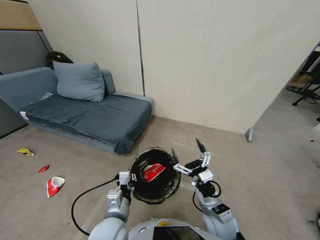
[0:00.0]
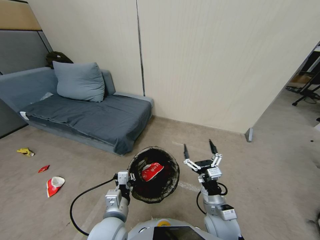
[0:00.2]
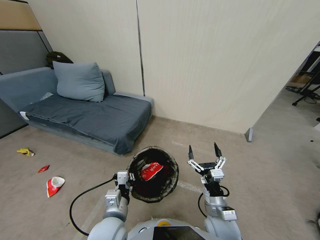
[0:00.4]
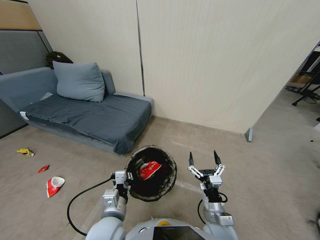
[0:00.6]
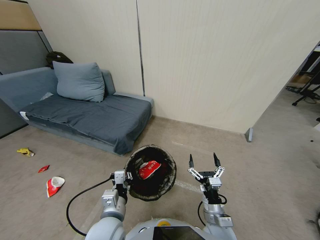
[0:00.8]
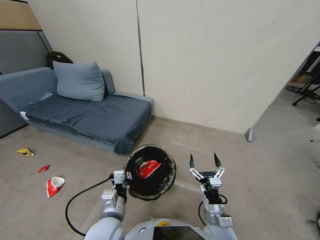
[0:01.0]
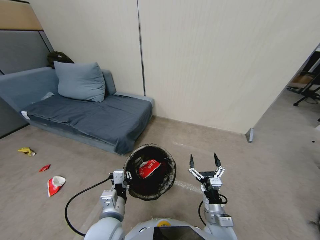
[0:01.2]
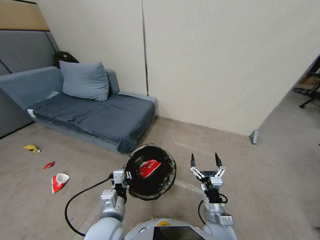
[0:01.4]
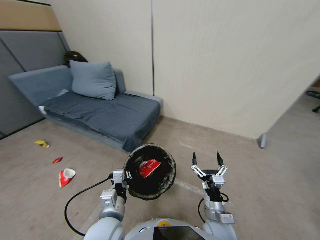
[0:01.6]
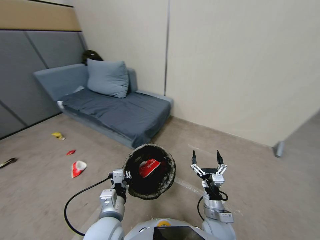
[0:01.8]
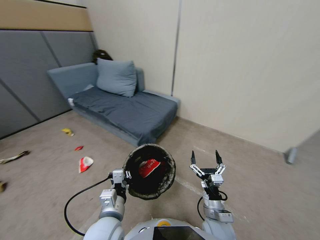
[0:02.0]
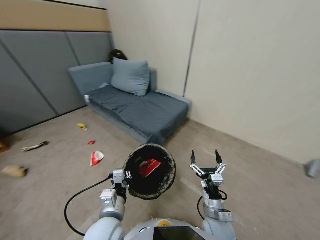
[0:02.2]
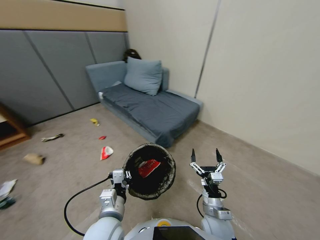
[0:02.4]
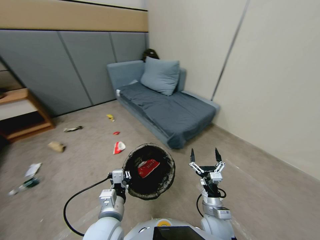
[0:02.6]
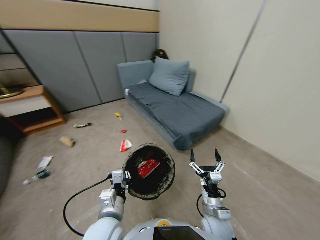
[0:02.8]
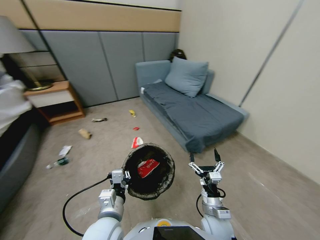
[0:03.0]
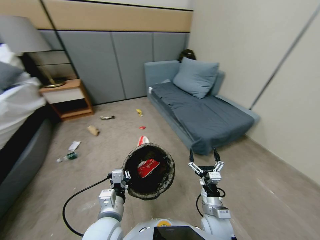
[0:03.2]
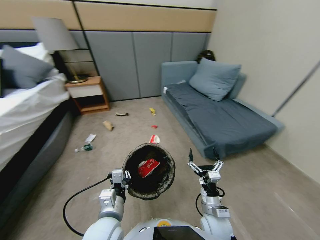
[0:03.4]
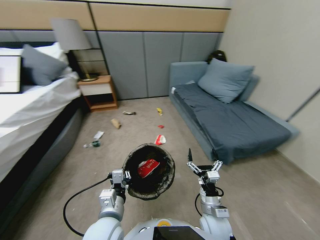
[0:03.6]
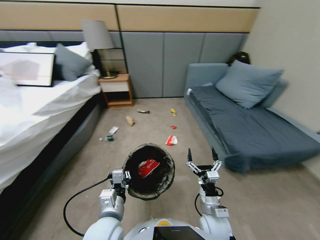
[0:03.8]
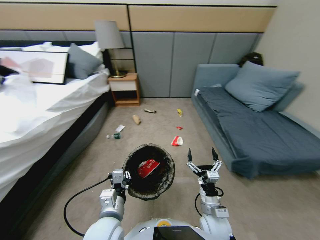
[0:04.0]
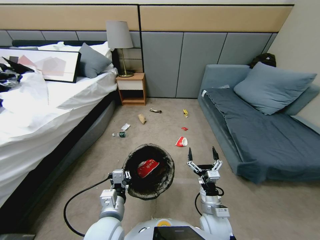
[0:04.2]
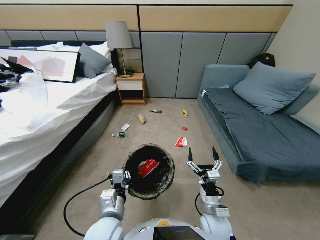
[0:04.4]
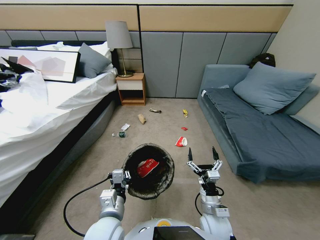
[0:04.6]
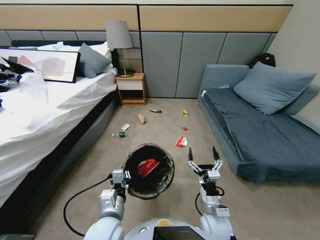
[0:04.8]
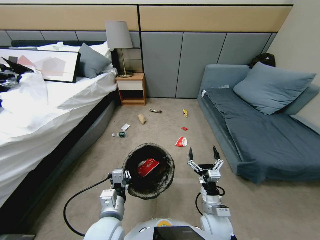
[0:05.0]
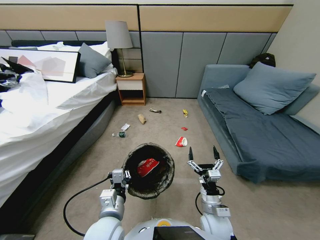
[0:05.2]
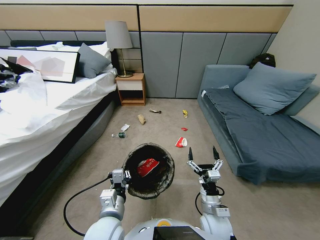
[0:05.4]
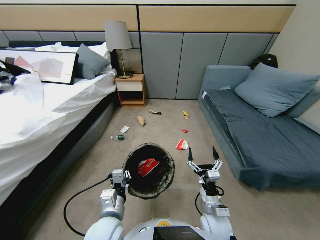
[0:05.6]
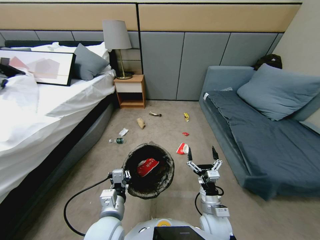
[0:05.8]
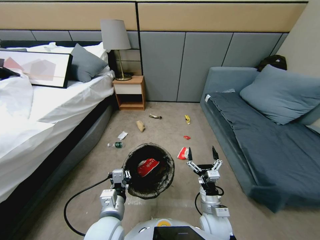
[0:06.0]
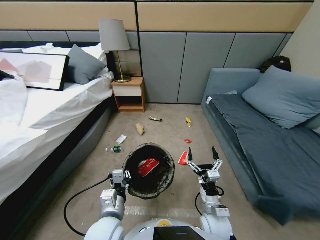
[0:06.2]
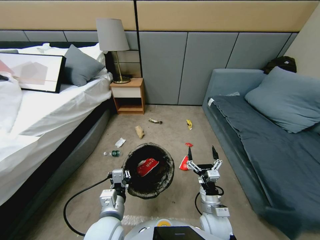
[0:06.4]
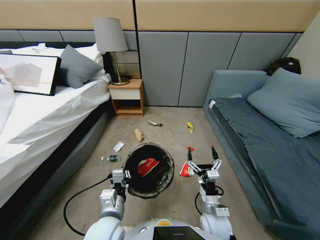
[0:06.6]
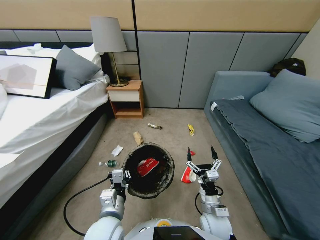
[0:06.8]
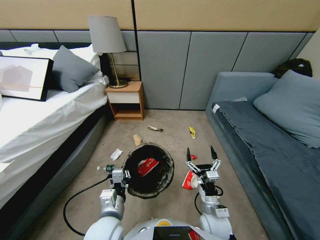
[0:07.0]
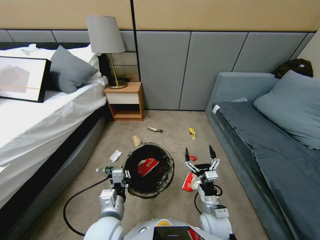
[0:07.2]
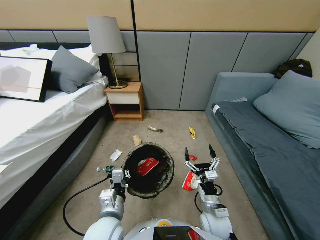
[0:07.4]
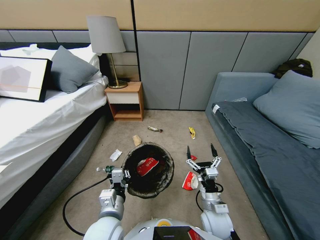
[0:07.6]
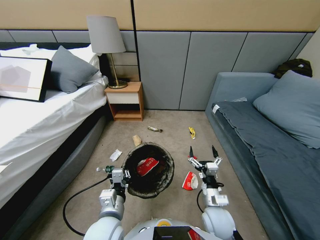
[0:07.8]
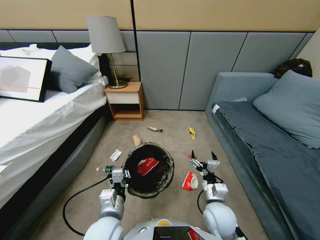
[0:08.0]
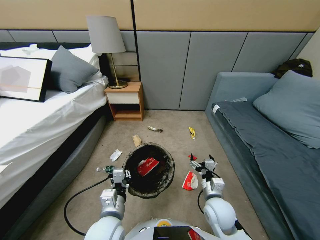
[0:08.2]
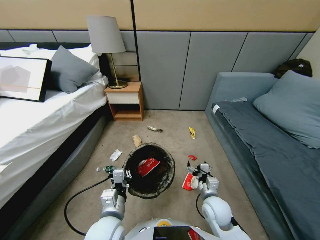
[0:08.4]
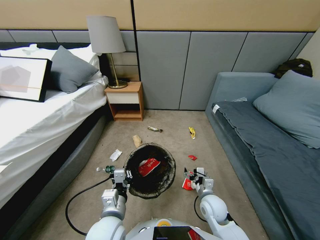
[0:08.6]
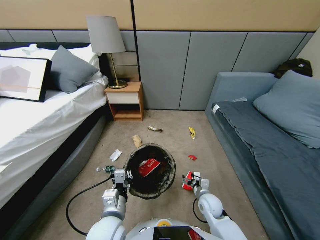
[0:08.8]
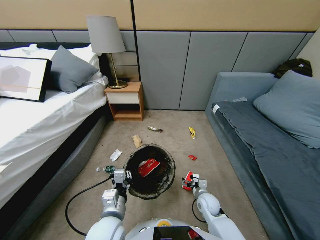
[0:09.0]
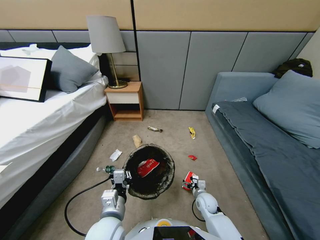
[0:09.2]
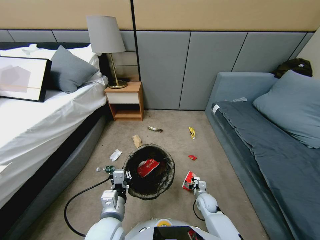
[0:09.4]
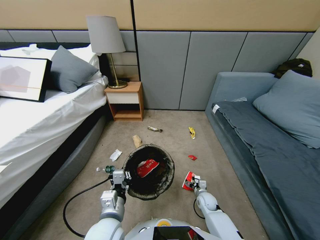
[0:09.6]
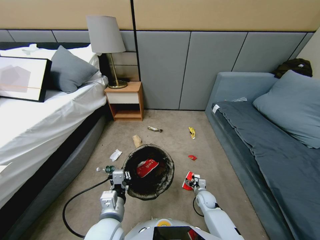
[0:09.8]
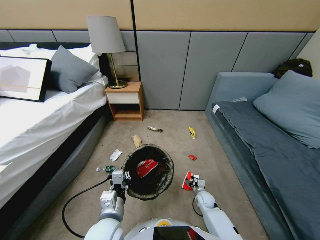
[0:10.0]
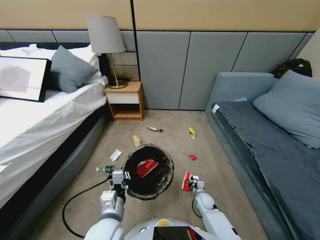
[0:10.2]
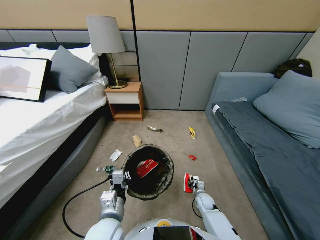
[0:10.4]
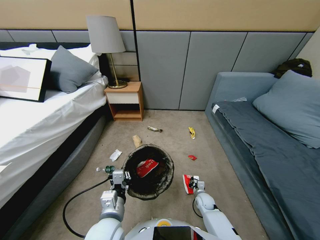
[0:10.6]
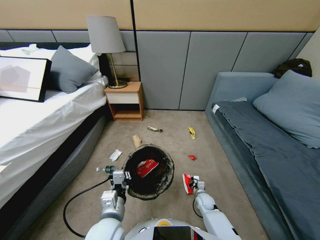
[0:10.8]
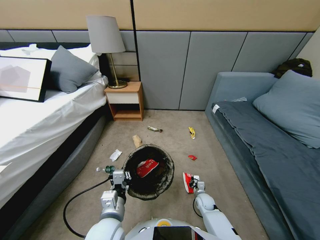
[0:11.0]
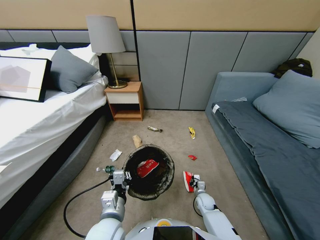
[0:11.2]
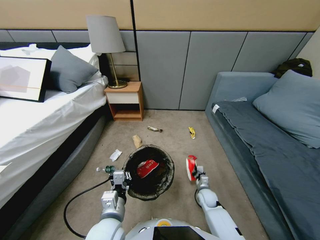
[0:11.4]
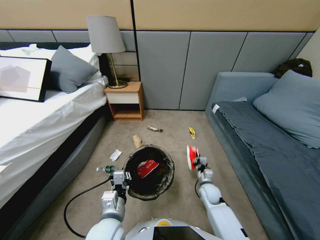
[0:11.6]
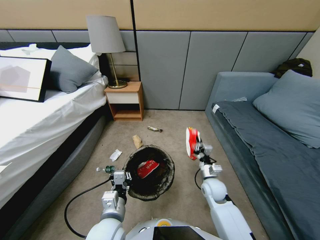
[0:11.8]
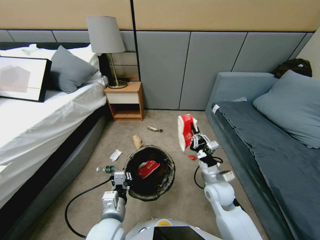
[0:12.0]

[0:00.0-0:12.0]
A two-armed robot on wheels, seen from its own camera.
Task of the whole recording: Pick up the trash bin, then pick up the garbage from the floor and place it into the trash bin.
0:00.0 to 0:01.6: The grippers move only a little.
0:07.6 to 0:09.0: The right gripper shifts some 15 cm downward and forward.
0:09.0 to 0:10.4: The right gripper goes some 10 cm downward, and closes.
0:10.4 to 0:12.0: The right gripper goes roughly 25 cm upward.

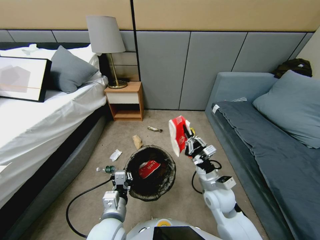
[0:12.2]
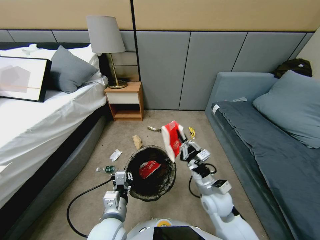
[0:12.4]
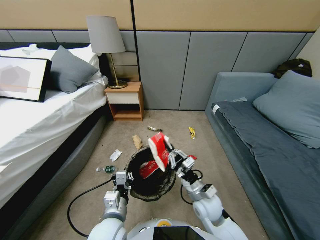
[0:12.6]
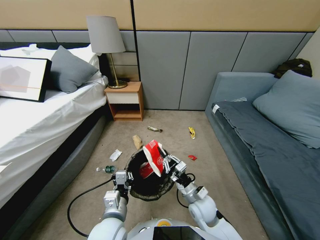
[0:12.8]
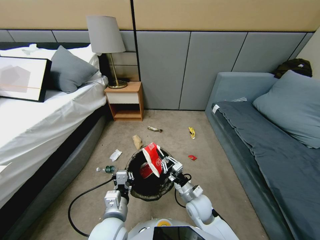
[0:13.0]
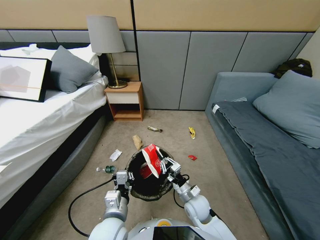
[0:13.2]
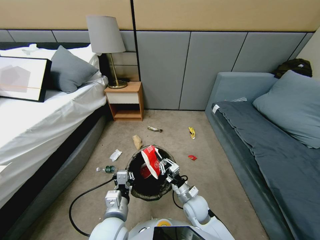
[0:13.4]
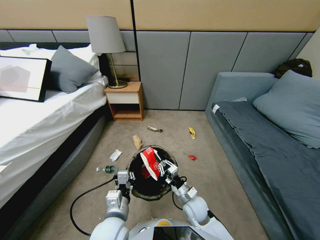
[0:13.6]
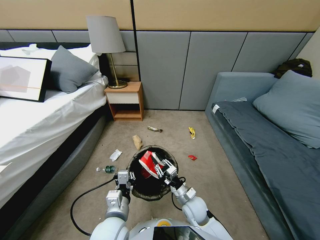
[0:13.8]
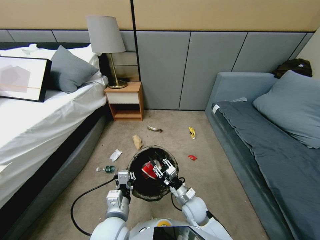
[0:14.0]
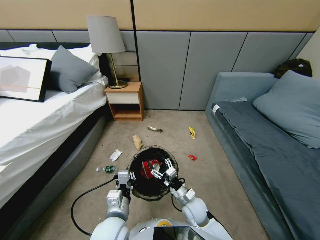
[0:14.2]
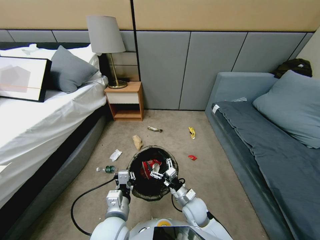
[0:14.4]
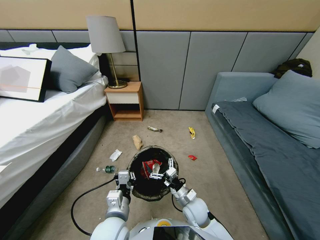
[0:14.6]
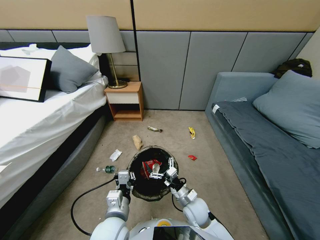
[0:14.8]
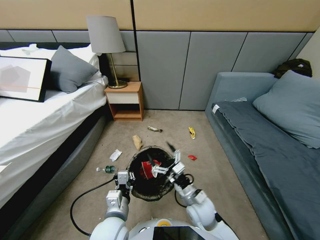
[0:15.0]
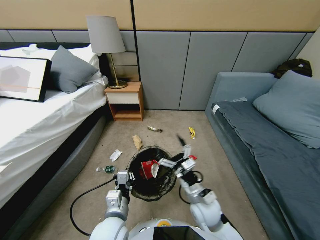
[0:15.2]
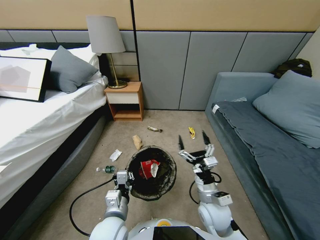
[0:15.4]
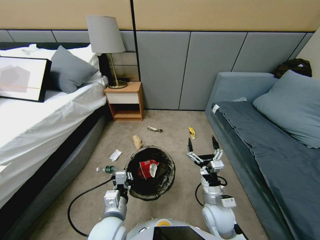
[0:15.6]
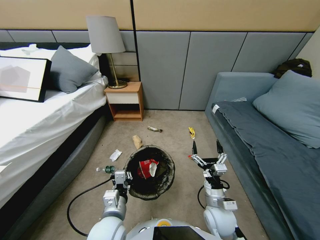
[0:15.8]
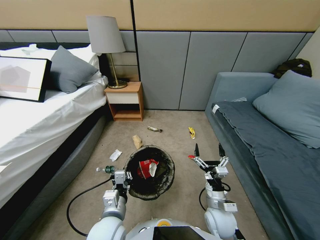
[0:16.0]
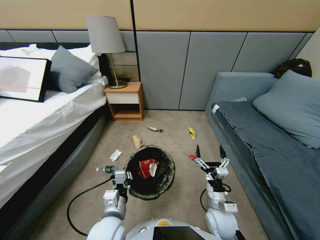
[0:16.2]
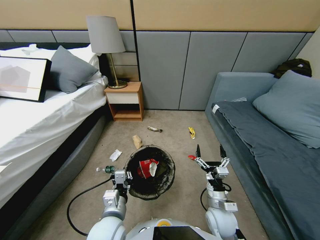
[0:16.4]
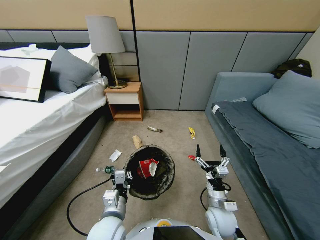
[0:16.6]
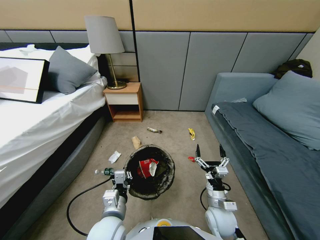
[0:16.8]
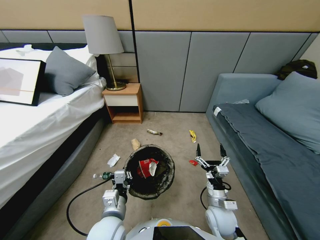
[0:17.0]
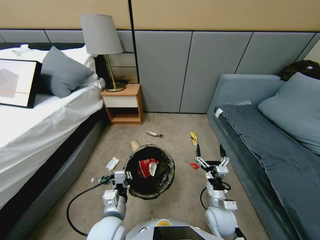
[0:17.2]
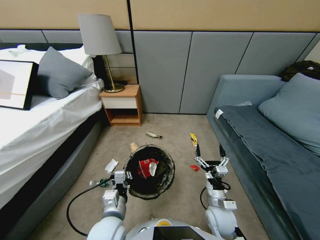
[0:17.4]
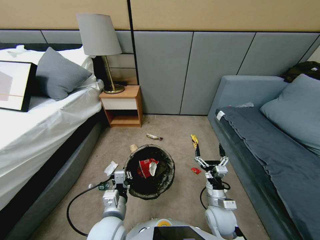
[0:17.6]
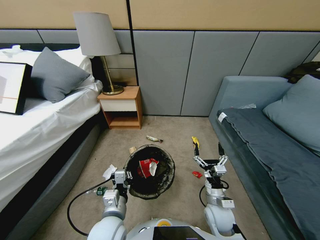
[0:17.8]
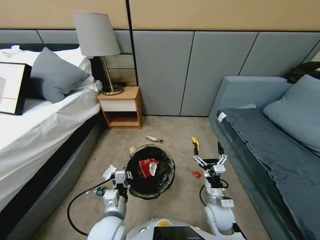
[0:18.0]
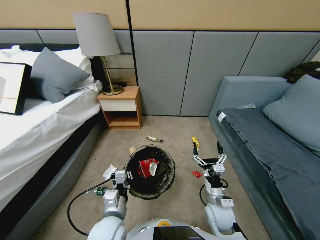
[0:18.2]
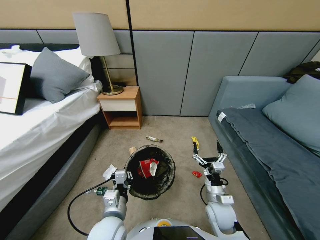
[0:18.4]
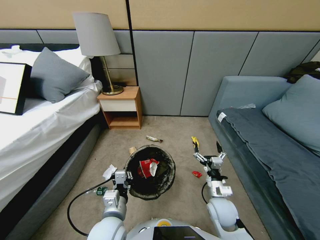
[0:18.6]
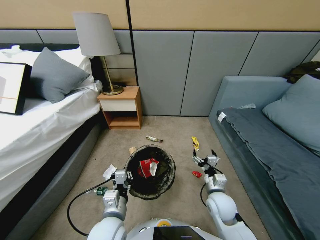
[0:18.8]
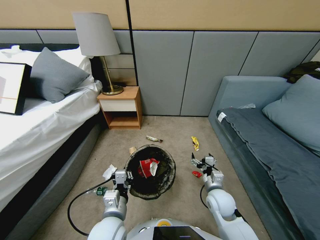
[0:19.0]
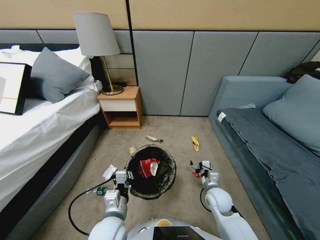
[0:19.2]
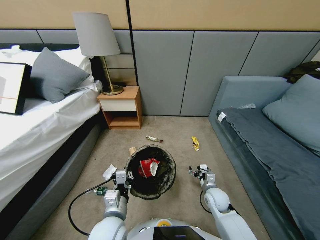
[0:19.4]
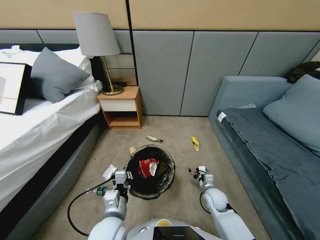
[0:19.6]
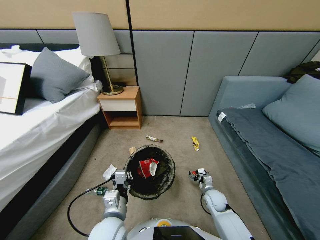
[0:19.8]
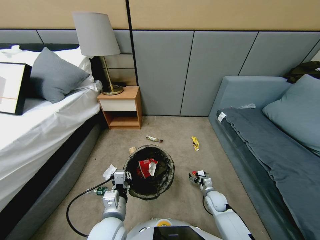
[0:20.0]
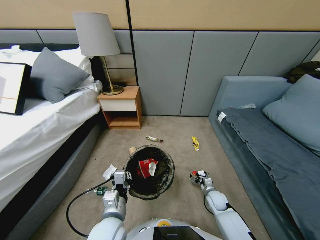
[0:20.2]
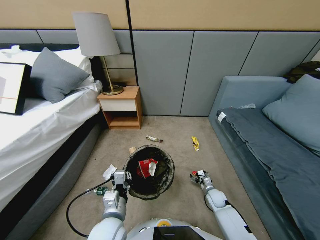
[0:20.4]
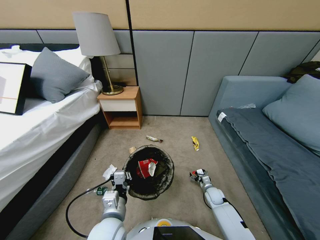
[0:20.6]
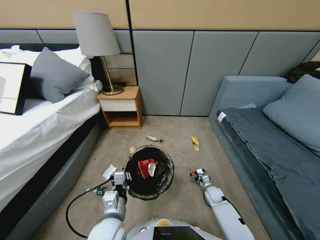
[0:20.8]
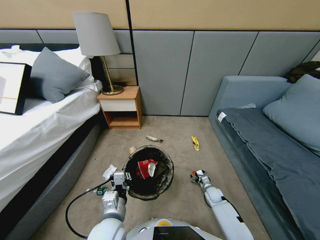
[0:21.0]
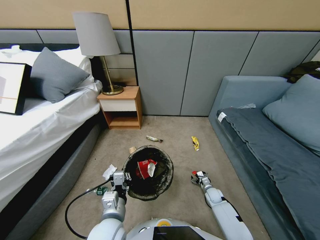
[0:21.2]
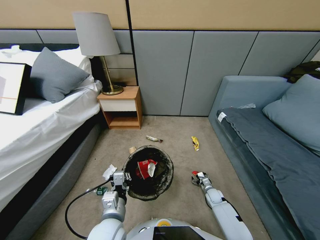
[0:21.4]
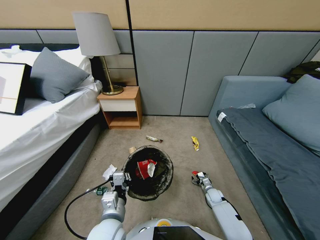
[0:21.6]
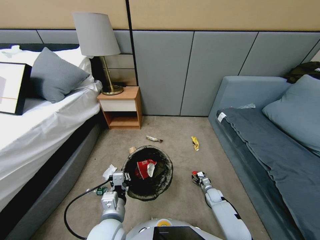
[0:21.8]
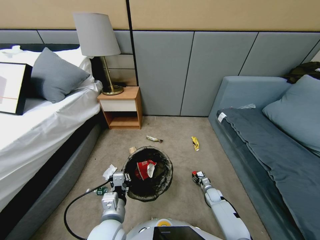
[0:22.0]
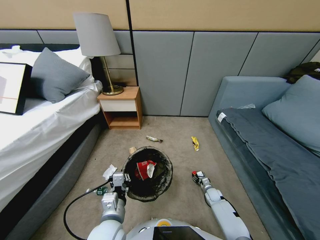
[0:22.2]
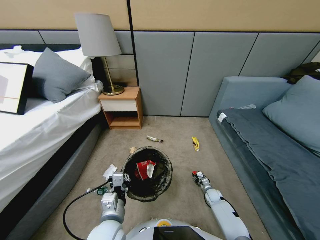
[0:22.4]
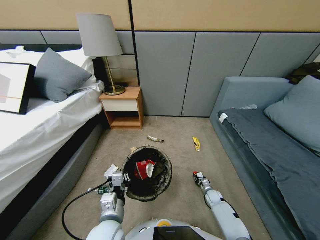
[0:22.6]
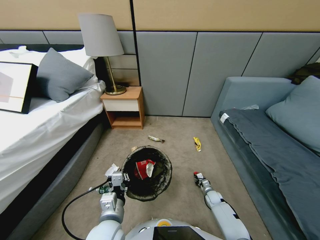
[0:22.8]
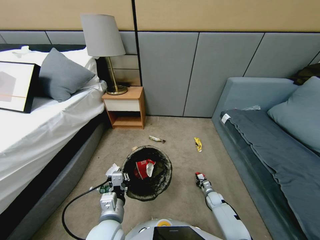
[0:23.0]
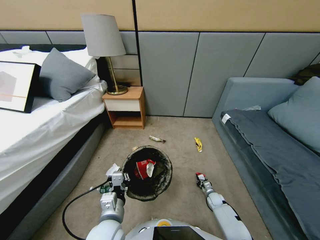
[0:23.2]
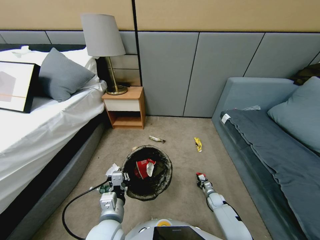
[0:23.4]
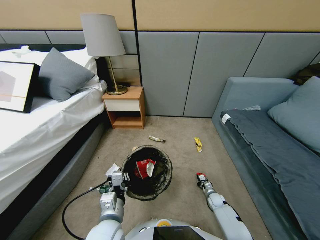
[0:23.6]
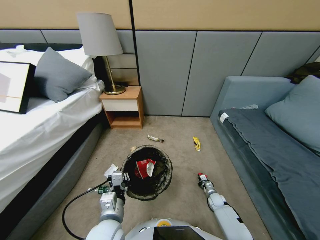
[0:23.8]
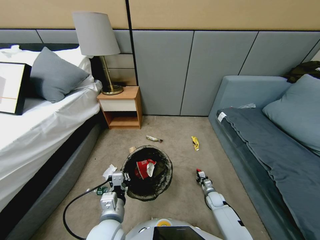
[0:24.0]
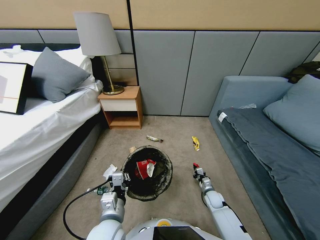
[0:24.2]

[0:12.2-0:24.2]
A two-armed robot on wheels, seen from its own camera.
Task of the whole recording: Pick up the trash bin, then pick up the garbage from the floor and place it into the trash bin.
0:12.2 to 0:13.8: The right gripper moves downward and to the left, roughly 10 cm, and opens up.
0:13.8 to 0:15.2: The right gripper moves upward, approximately 10 cm, and opens.
0:15.2 to 0:16.6: The right gripper heads downward, covering approximately 5 cm.
0:18.2 to 0:19.8: The right gripper goes approximately 15 cm downward, forward and to the right.
0:19.8 to 0:21.2: The right gripper goes roughly 10 cm downward and to the right.
0:21.2 to 0:22.6: The right gripper closes up.
0:22.6 to 0:24.2: The right gripper moves upward and to the left, about 10 cm.
